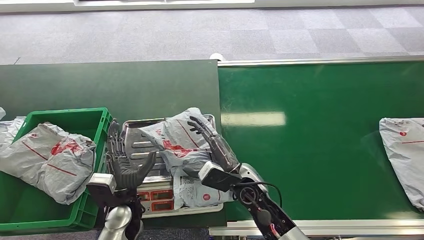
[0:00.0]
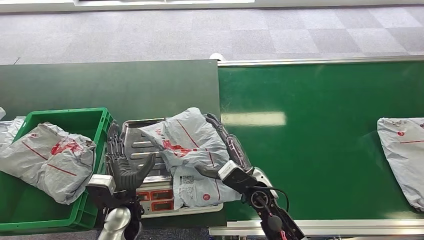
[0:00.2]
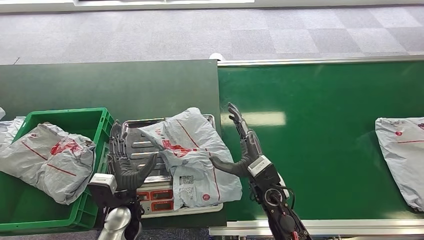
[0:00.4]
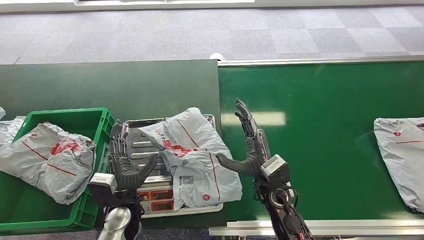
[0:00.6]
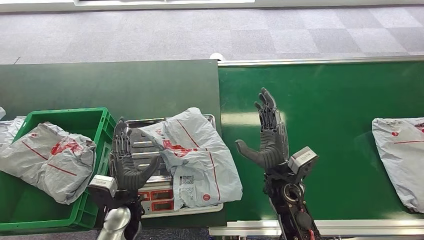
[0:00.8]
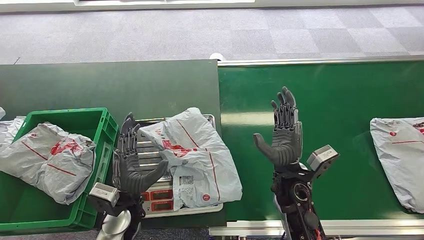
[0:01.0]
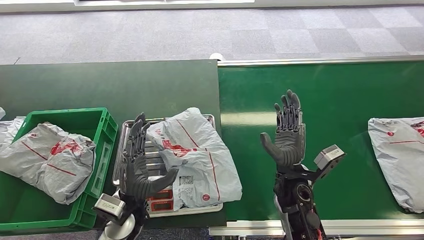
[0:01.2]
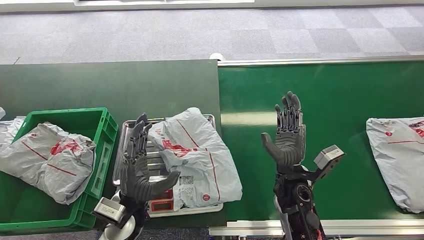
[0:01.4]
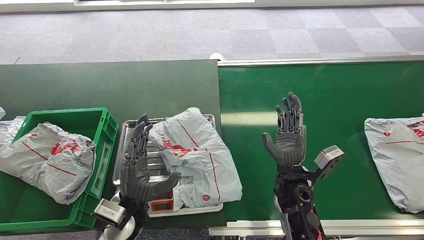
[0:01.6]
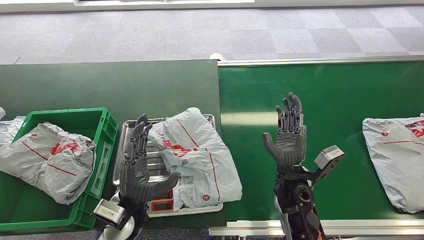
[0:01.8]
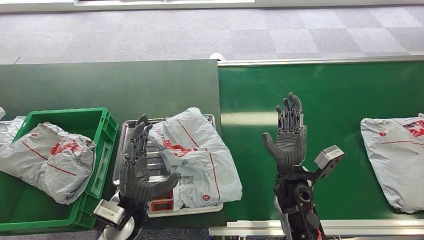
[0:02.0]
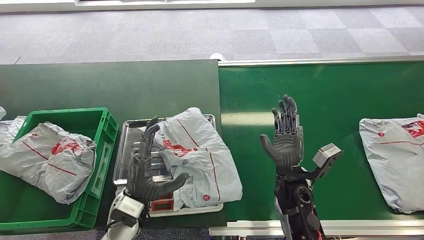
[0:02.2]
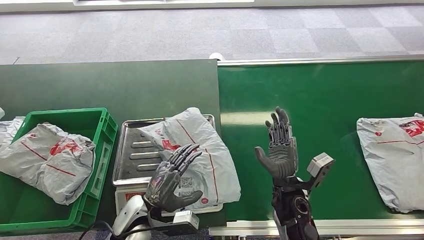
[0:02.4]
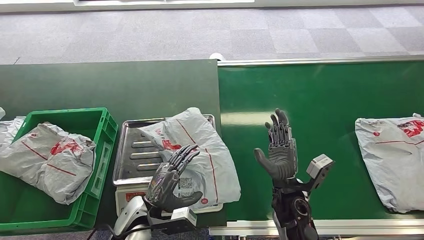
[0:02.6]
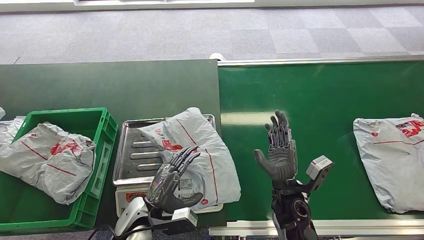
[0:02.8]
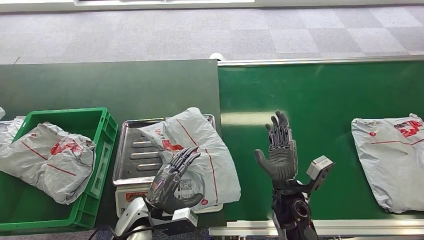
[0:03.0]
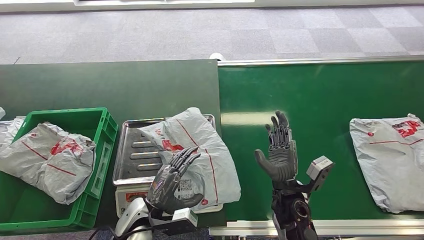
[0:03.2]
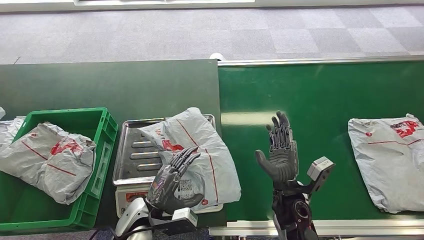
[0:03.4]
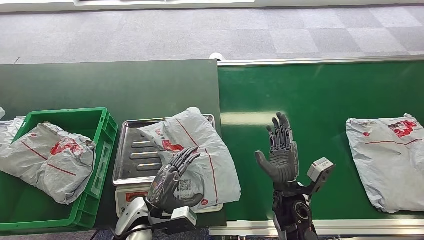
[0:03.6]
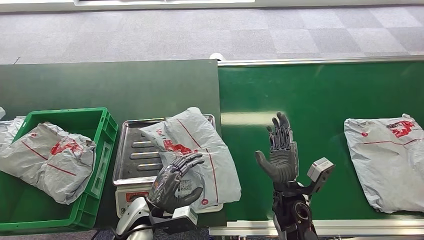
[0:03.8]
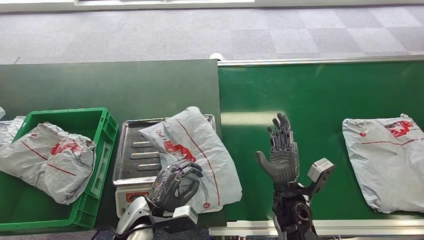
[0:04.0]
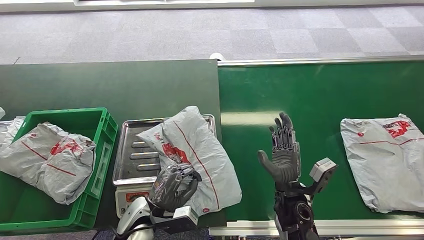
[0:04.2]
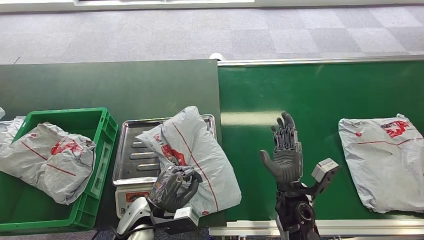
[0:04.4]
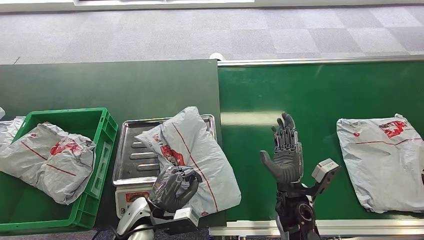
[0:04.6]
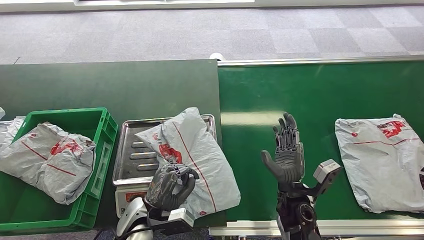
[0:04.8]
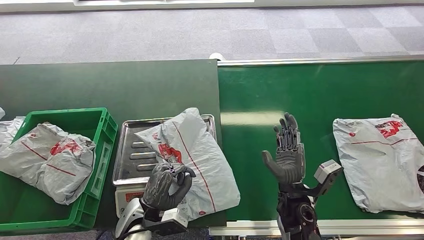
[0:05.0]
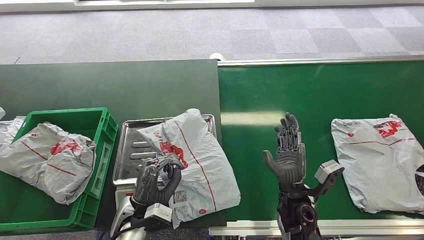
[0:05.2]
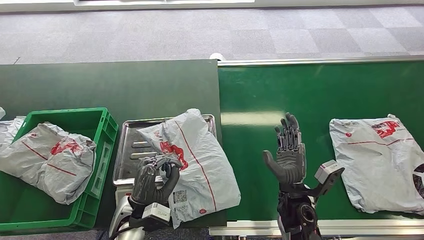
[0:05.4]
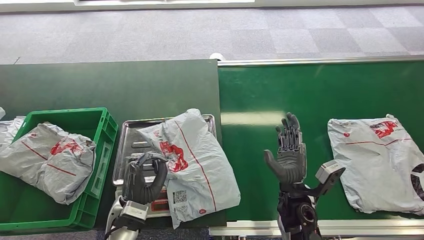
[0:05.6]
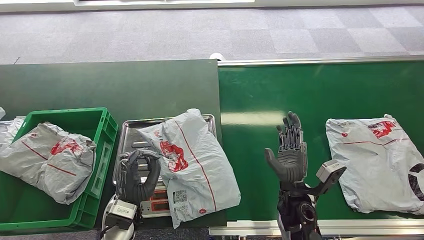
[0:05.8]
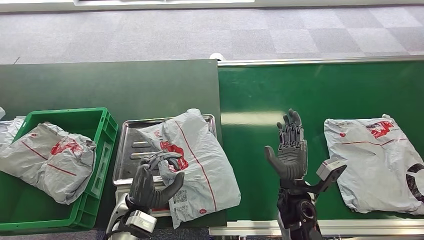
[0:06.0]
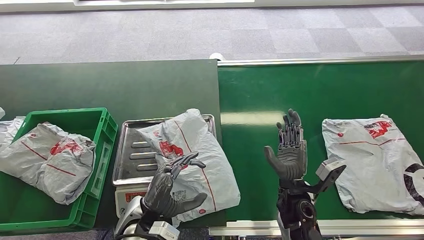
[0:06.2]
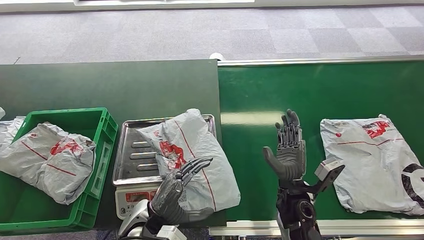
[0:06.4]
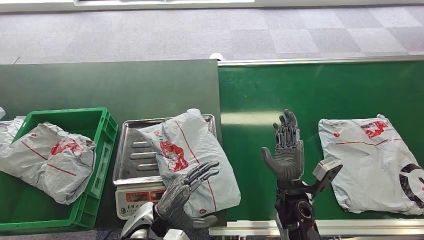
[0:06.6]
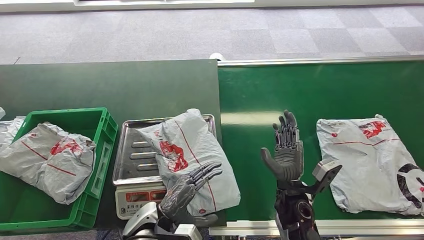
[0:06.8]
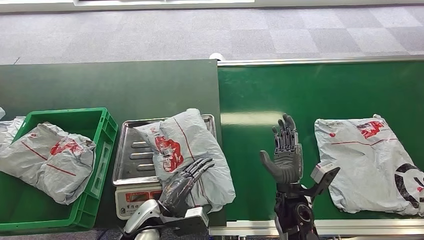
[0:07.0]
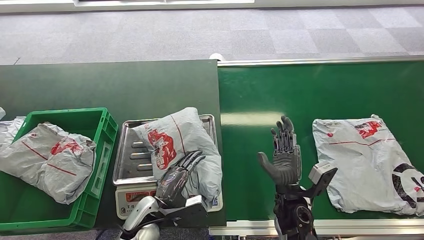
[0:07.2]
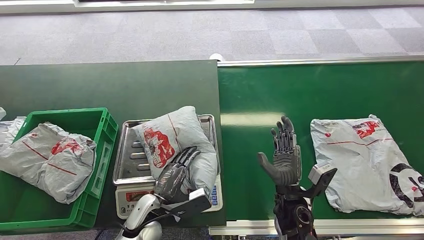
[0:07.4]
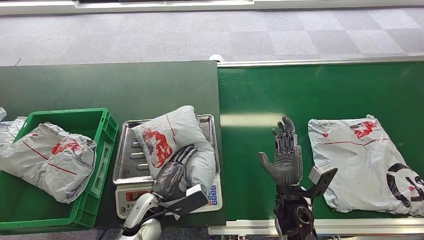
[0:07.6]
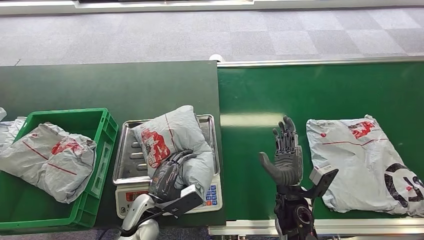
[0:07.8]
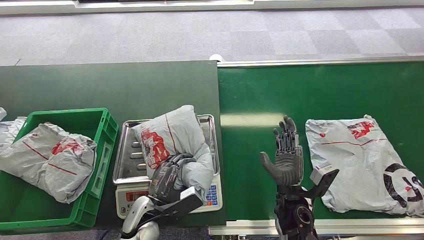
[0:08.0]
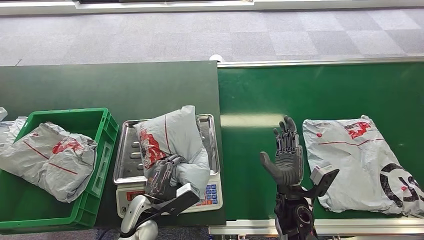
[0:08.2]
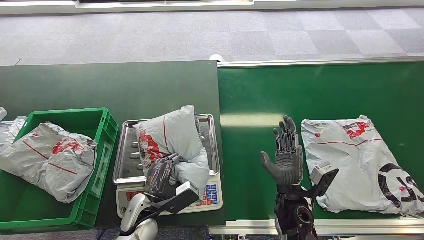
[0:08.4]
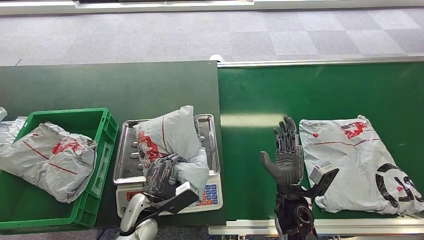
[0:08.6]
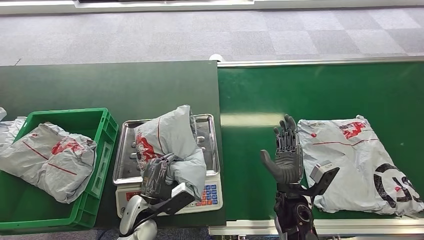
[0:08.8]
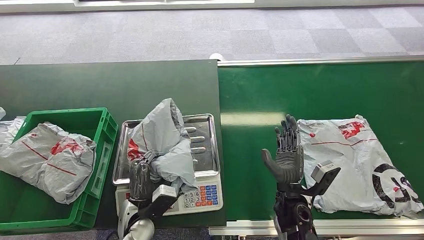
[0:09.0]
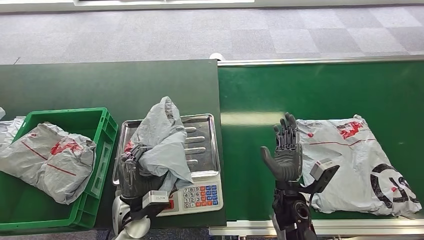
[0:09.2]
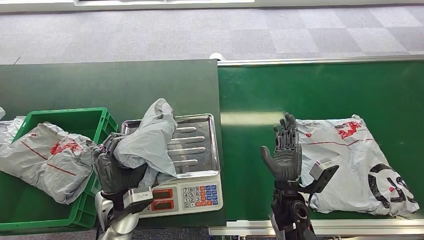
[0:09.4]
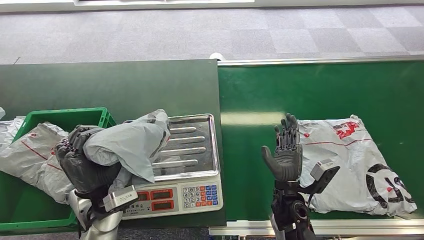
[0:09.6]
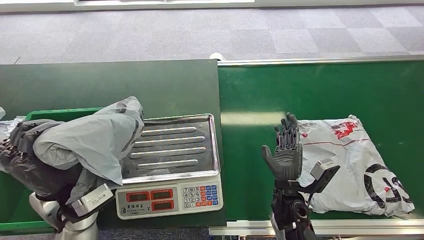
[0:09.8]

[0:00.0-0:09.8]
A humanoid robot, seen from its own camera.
Step, 8.8 to 9.6 s: Pick up the package from the inbound machine.
0.0 to 1.4 s: The right hand travels to the right by approximately 10 cm, while the left hand shifts by roughly 5 cm.
1.4 to 2.8 s: The left hand moves about 5 cm.
2.8 to 4.2 s: Neither hand changes place.

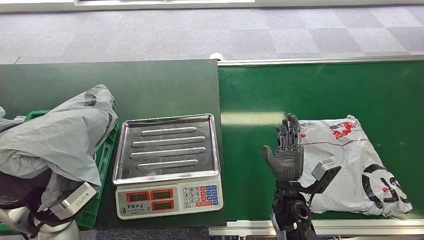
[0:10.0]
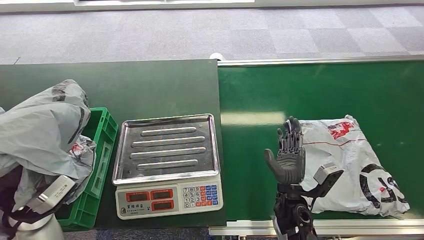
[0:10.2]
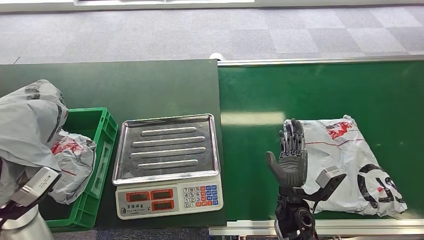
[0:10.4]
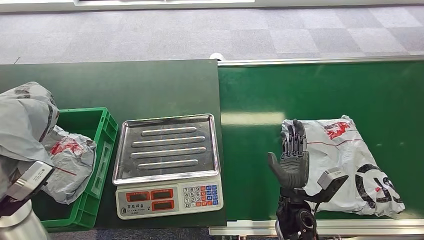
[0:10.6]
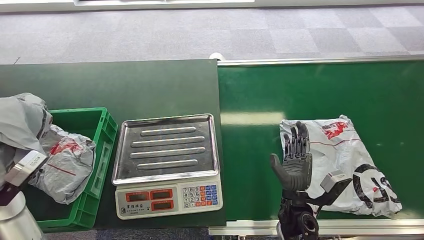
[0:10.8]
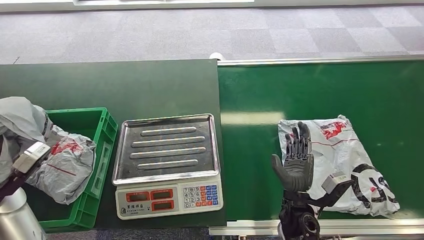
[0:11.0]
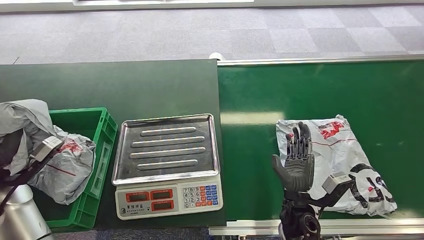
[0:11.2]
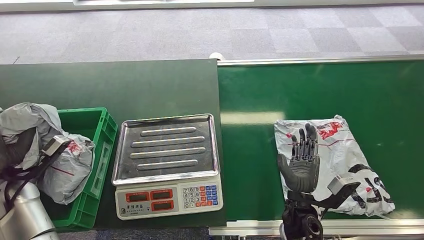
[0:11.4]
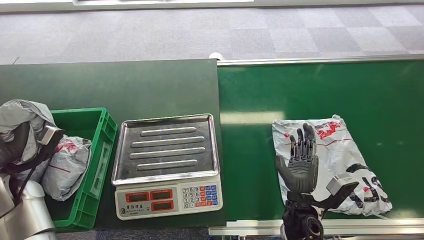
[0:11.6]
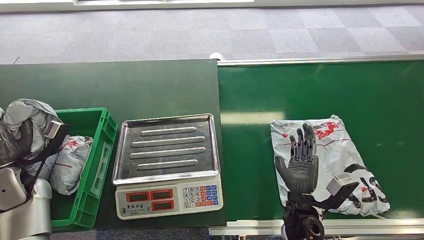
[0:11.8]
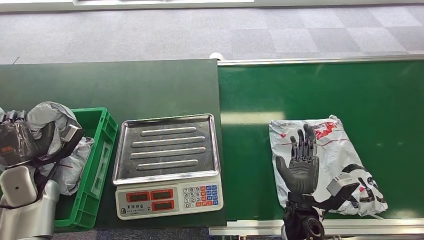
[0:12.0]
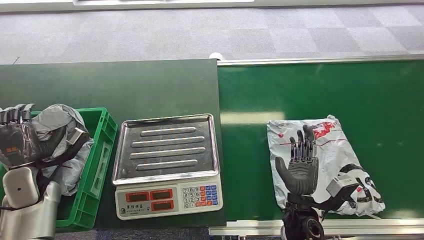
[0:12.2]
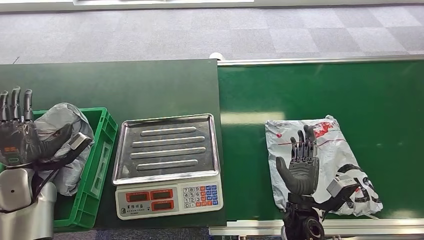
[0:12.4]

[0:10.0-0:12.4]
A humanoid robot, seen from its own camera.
Step, 11.2 to 12.4 s: Place the package into the parcel locker.
10.0 to 11.2 s: The left hand goes about 15 cm to the left.
11.2 to 12.4 s: The left hand goes about 5 cm downward.

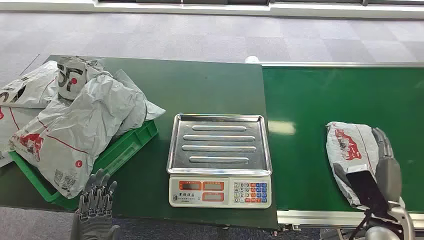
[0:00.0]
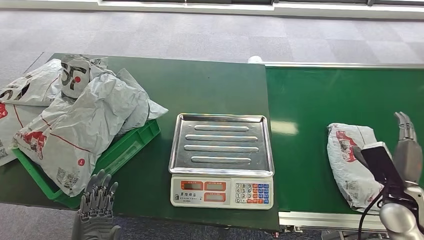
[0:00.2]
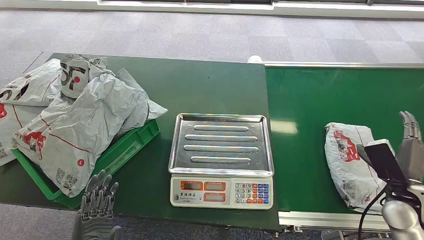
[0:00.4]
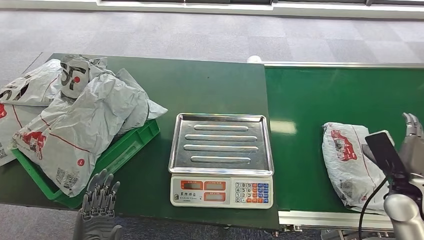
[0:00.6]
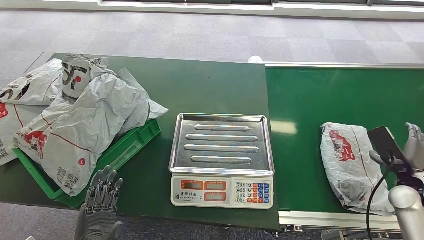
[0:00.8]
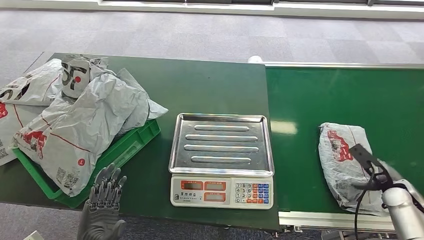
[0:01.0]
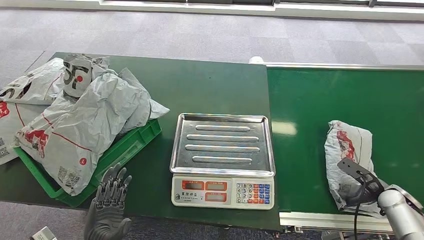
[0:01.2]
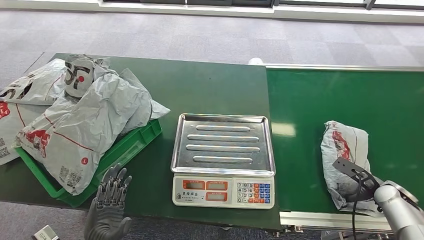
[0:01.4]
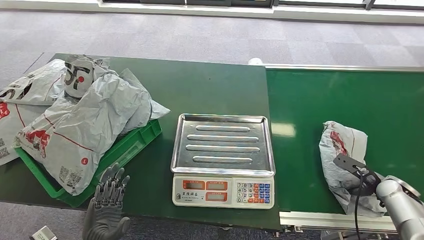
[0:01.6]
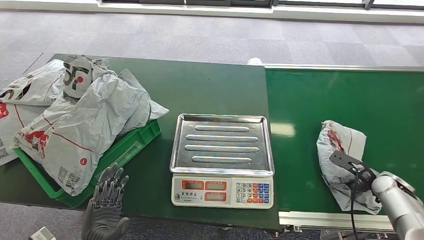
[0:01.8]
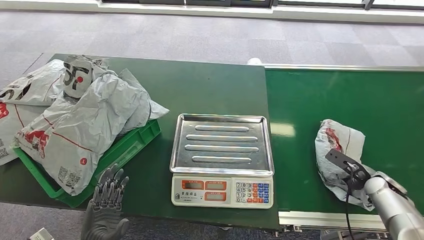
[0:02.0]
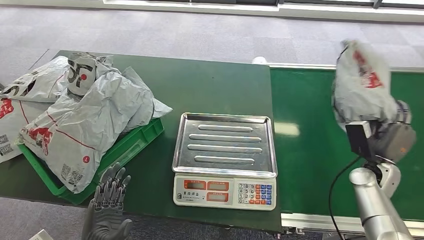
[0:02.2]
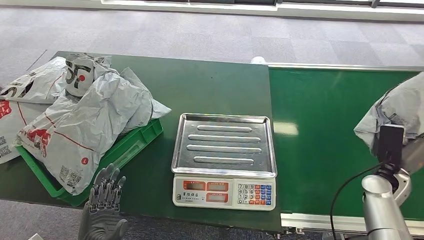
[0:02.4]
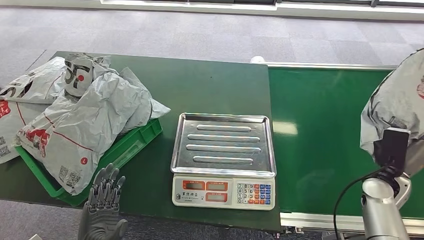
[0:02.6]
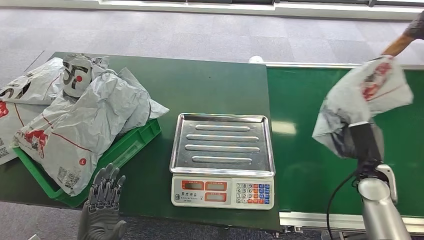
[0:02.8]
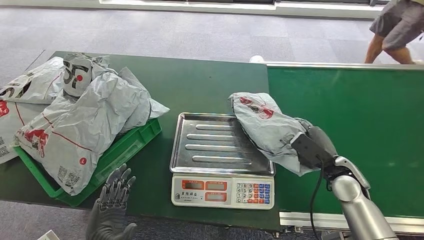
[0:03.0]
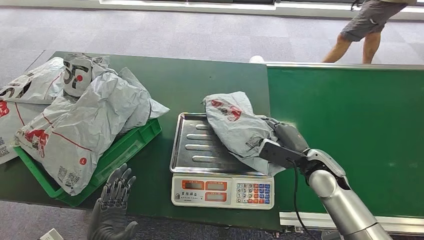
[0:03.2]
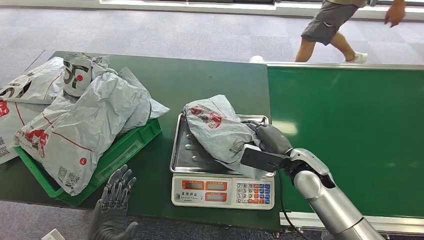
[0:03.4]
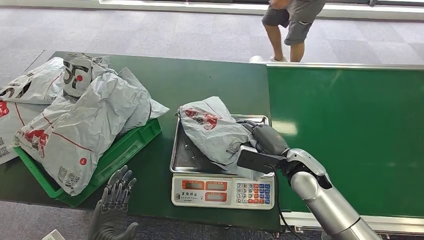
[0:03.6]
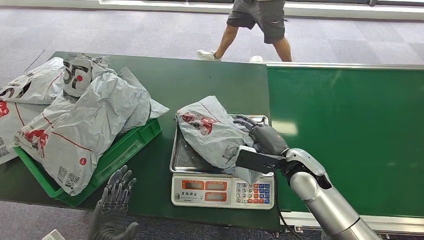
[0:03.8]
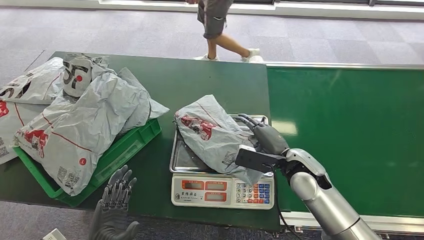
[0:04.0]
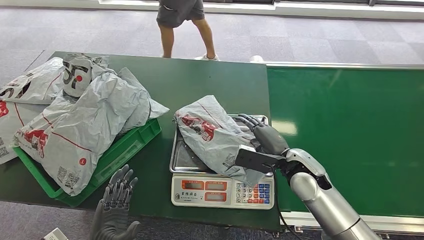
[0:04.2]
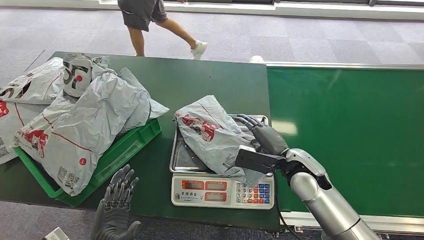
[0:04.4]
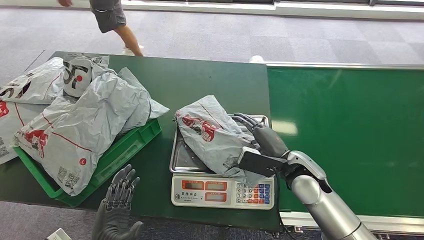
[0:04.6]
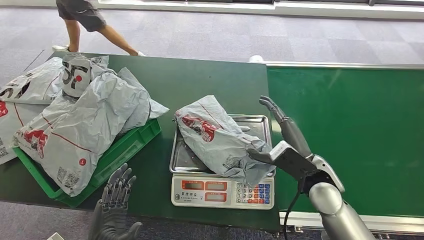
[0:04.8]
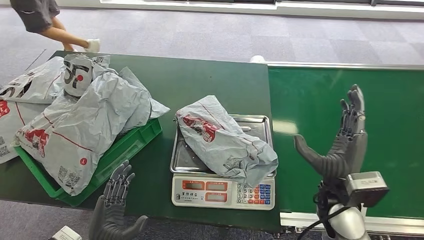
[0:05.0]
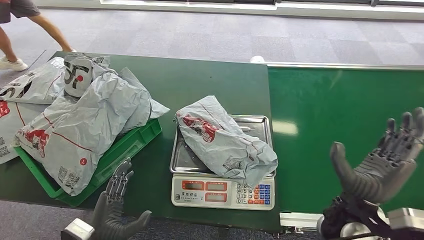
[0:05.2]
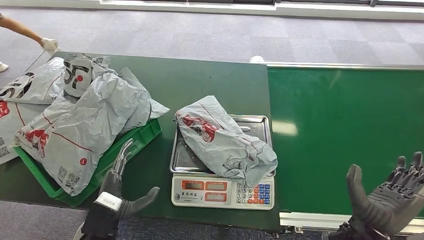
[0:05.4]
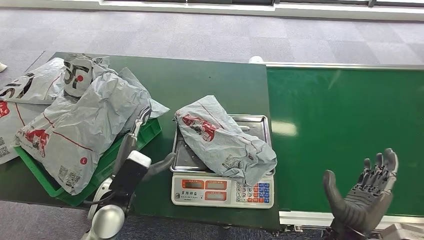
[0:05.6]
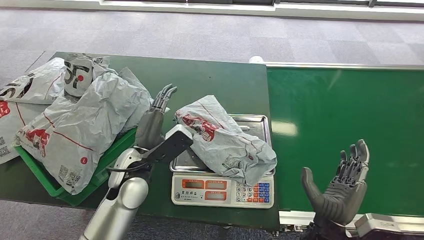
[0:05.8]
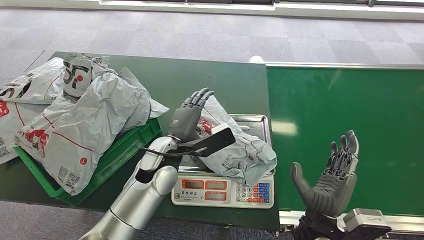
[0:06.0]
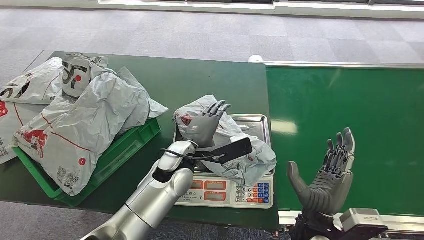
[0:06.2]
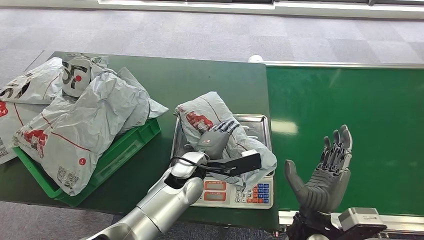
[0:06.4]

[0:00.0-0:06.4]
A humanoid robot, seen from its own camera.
Step, 0.0 to 2.2 s: Pick up the package from the conveyor belt.
Step, 2.4 to 4.0 s: Place the package onto the inbound machine.
3.2 to 4.8 s: The right hand ends up about 5 cm from where it was.
4.8 to 6.4 s: The left hand goes roughly 30 cm to the right and forward, while the right hand shifts roughly 10 cm backward and to the left.
